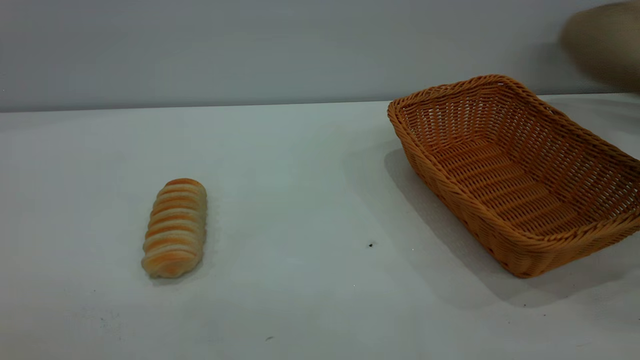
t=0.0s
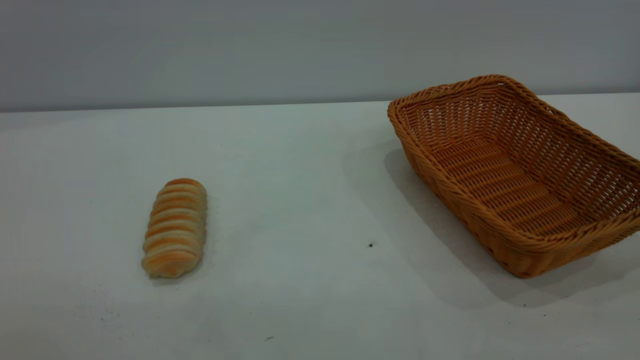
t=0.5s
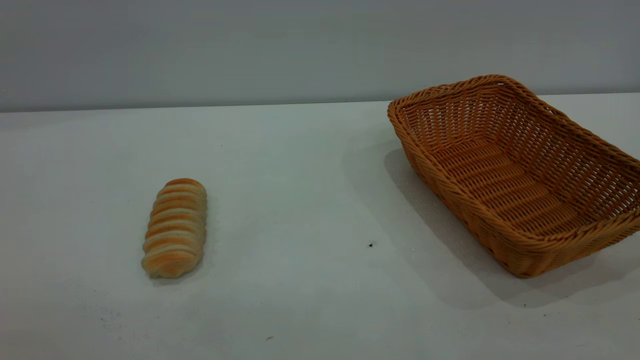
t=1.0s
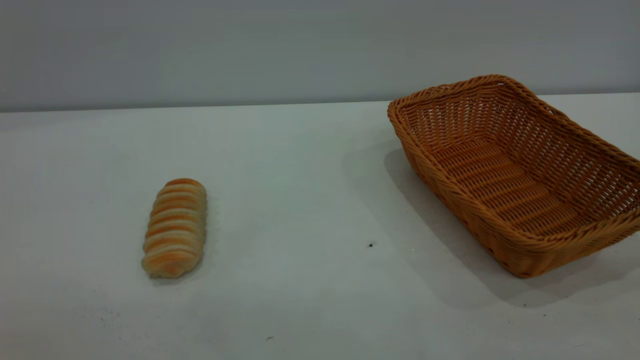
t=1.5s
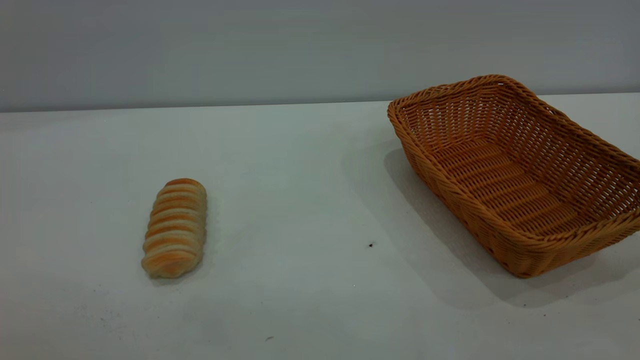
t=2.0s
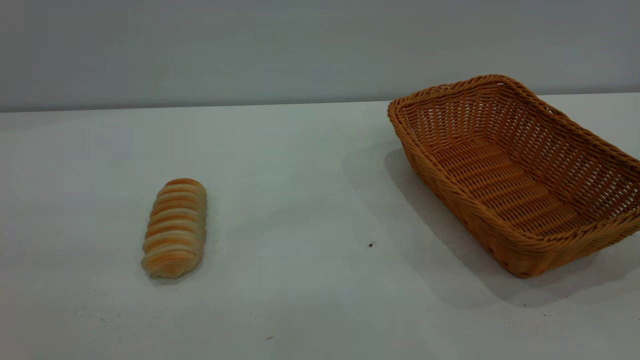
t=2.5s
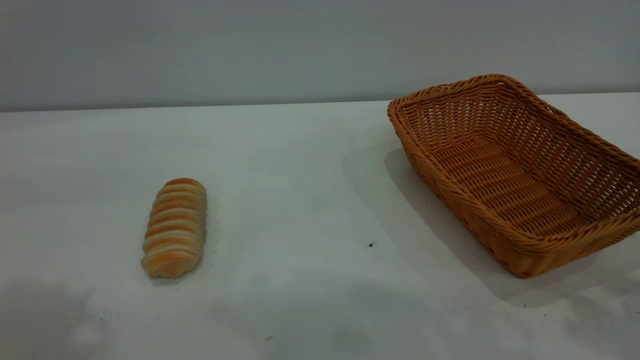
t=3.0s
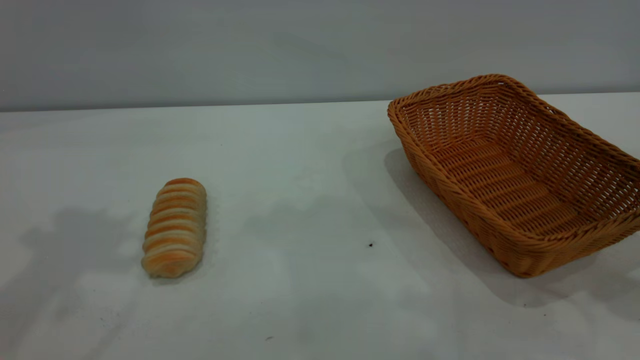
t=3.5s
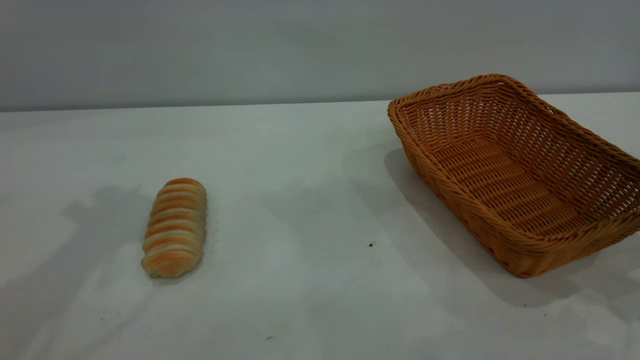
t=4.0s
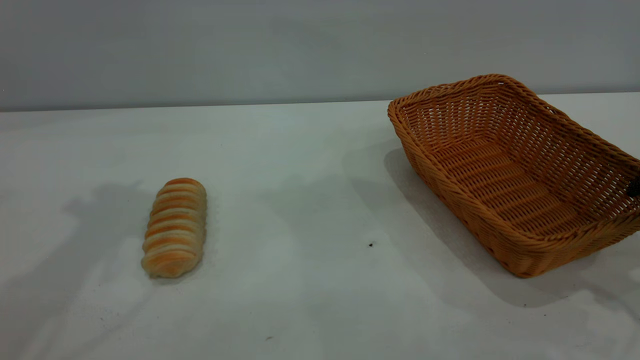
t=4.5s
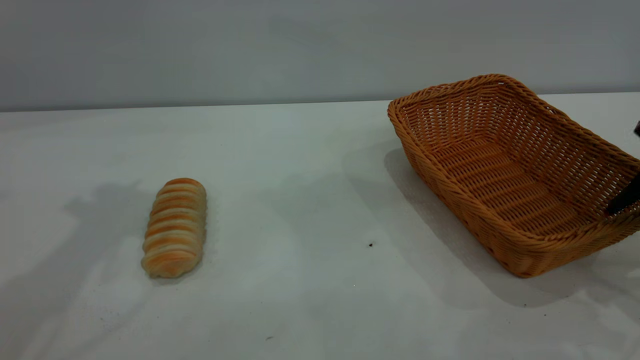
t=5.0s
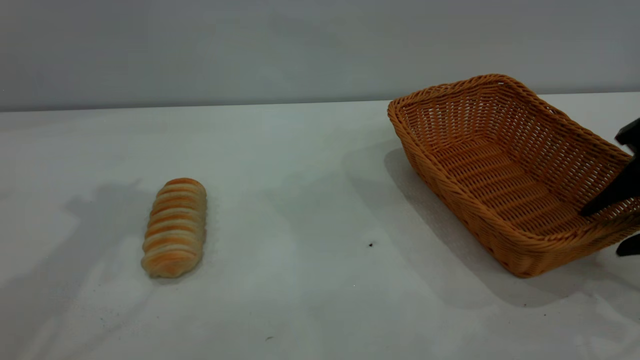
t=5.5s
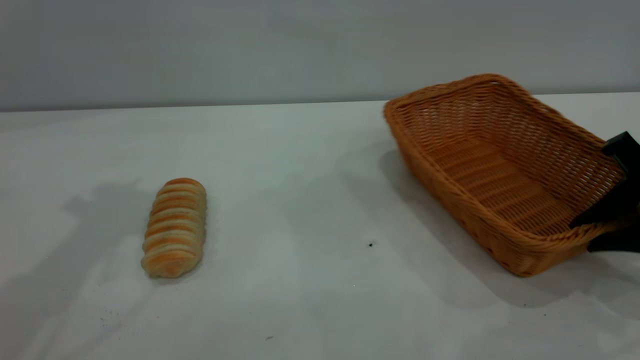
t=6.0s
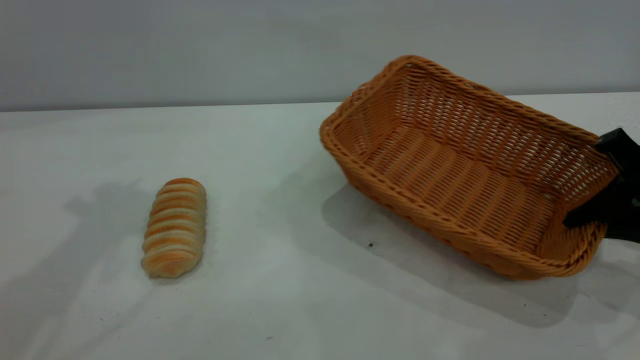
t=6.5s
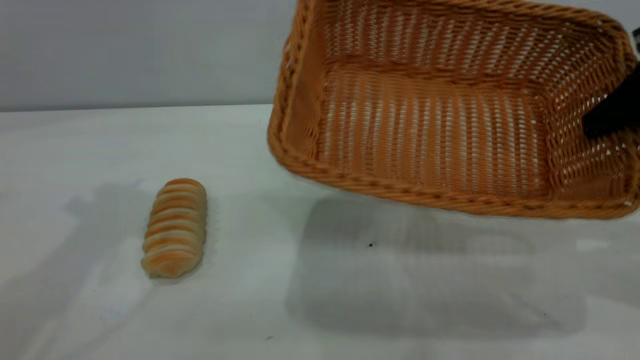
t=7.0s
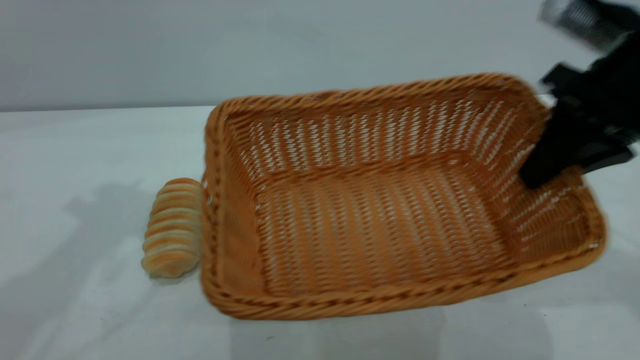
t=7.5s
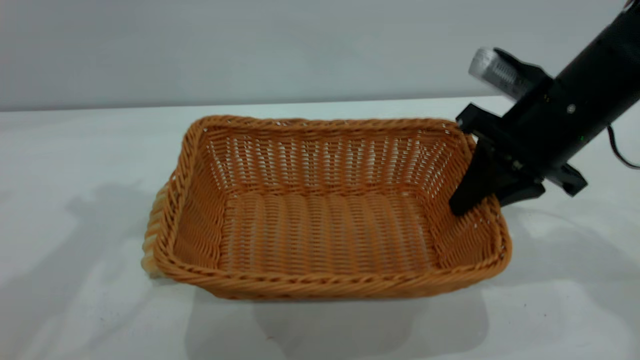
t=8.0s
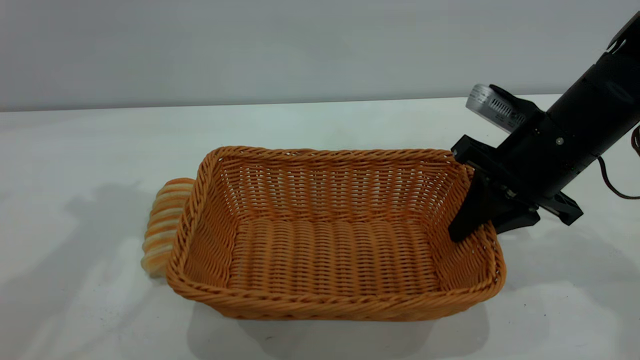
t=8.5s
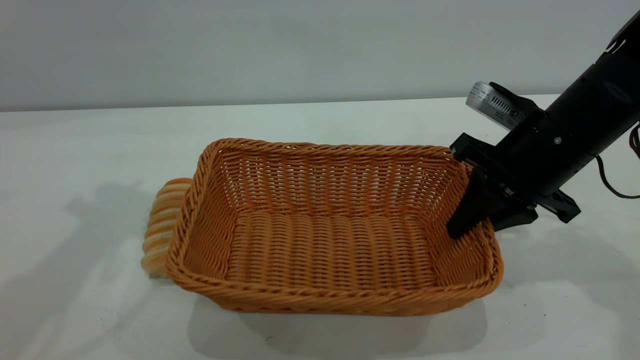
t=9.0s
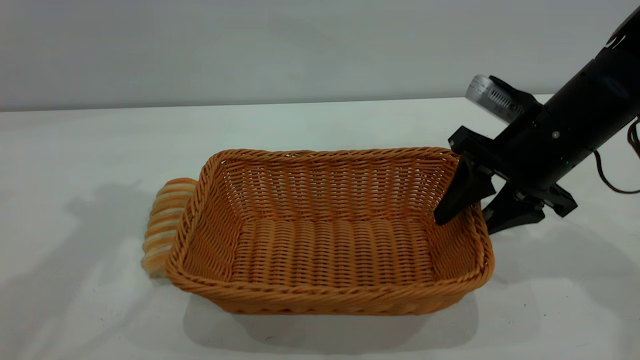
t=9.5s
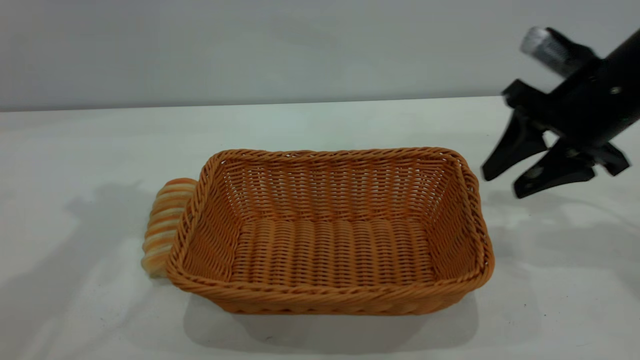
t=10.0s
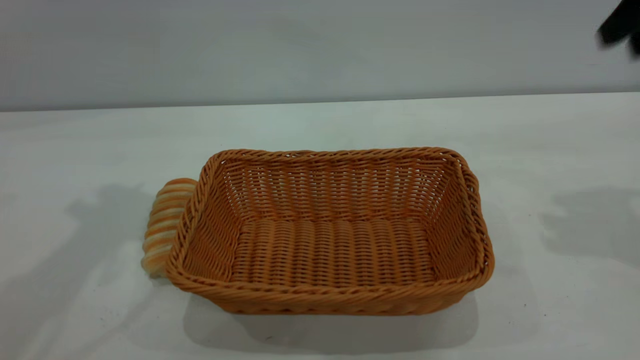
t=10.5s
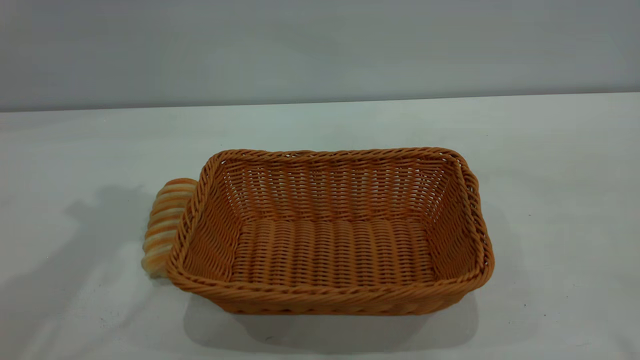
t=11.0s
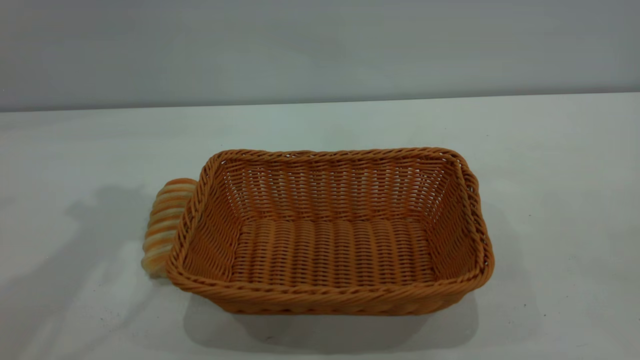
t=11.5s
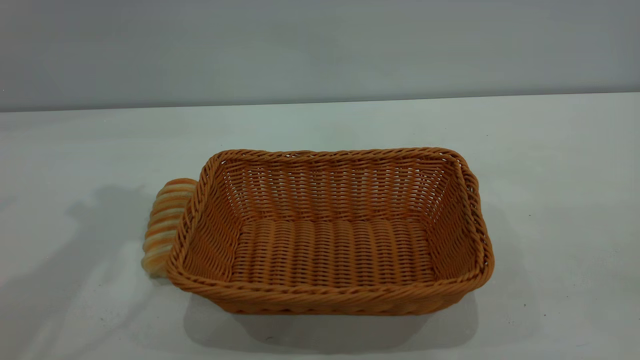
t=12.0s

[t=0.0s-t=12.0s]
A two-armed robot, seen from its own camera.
Task of the whole recording: One hand grasps the yellow basket and places it in the middle of the table, while the other hand picks up the long bread and puts it into the yellow basket.
Step, t=0.0s to t=10.0s: Move the basket to the center of view.
t=0.0s to t=2.0s: The grippers stay close to where they were, moving slightly.
t=4.0s to t=6.0s: The right gripper travels downward by some 10 cm, and closes.
t=6.0s to t=8.0s: The right gripper is displaced to the left and forward by approximately 15 cm.
t=8.0s to t=10.0s: The right gripper shifts some 5 cm to the right, and opens up.
t=10.0s to t=12.0s: The right gripper heads backward and upward, covering approximately 40 cm.

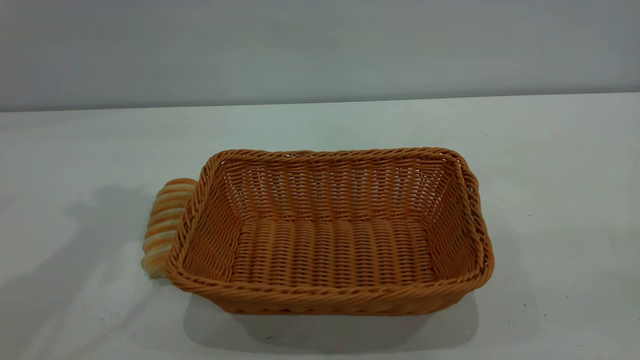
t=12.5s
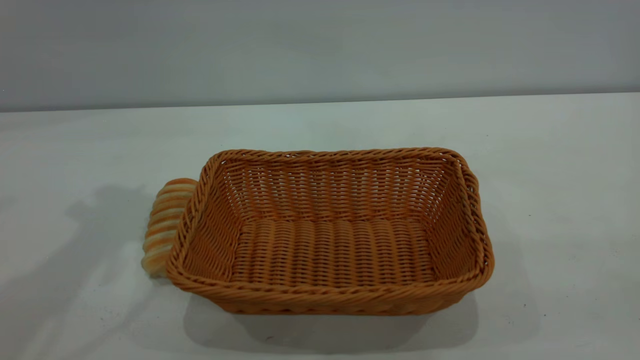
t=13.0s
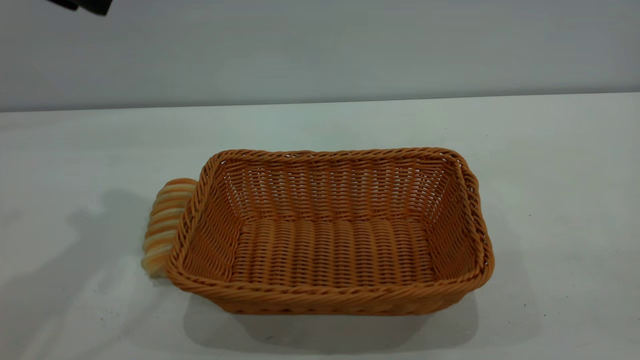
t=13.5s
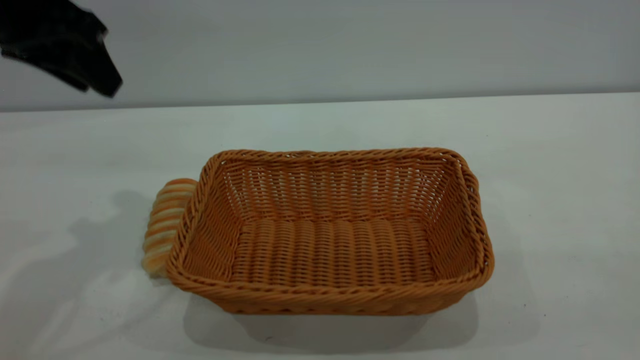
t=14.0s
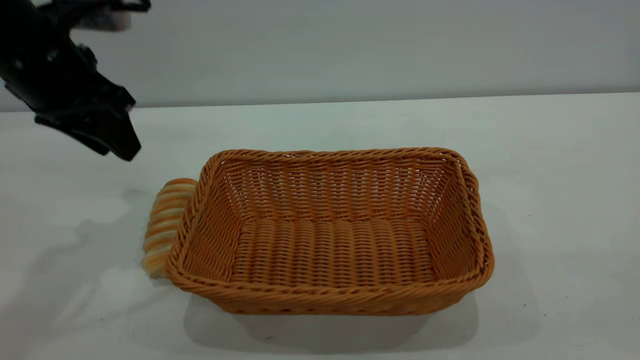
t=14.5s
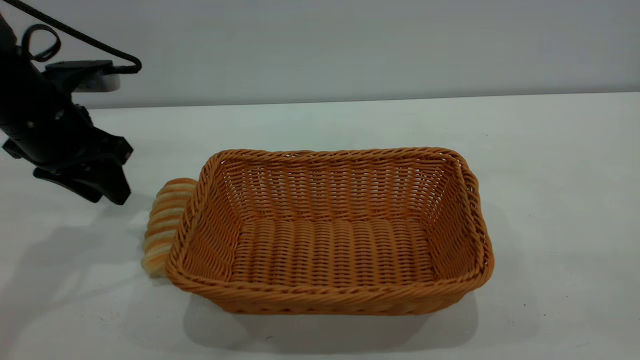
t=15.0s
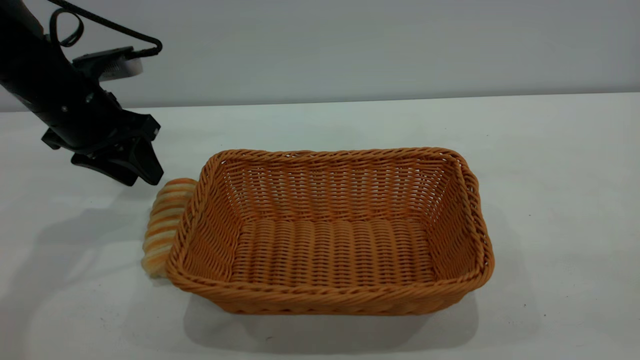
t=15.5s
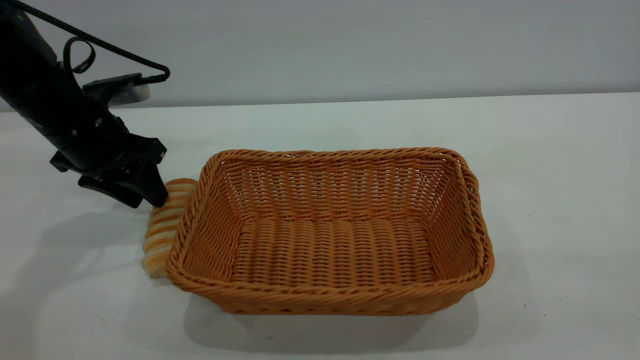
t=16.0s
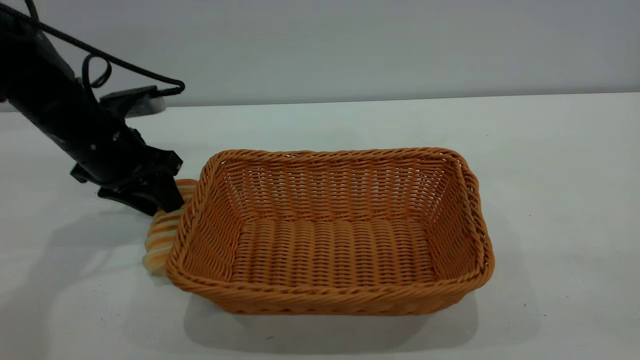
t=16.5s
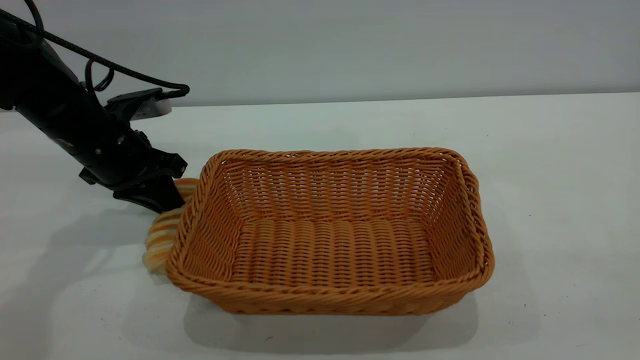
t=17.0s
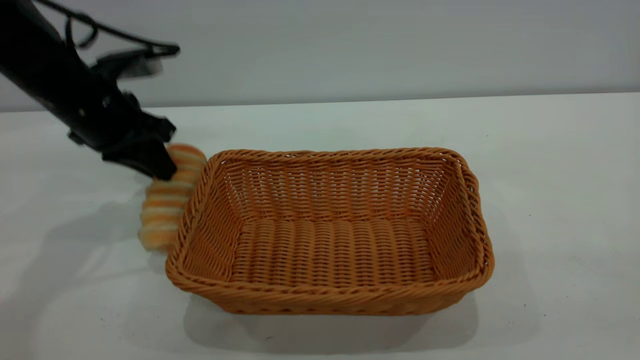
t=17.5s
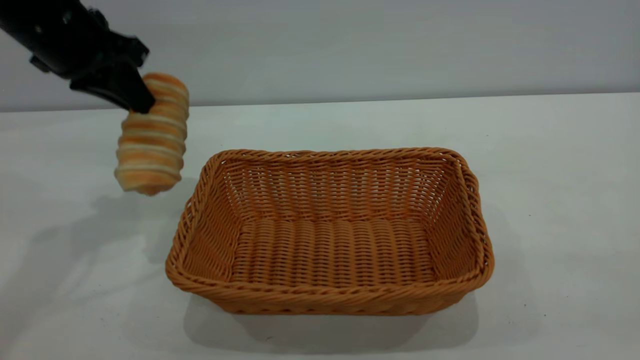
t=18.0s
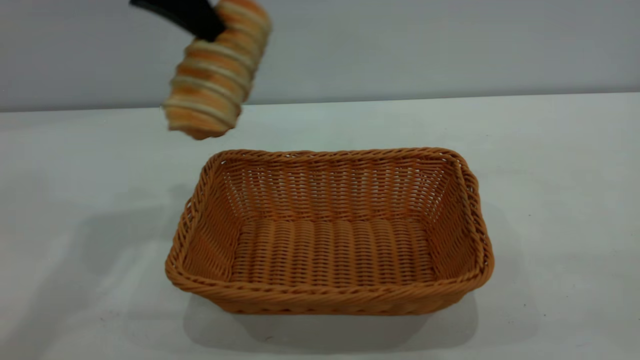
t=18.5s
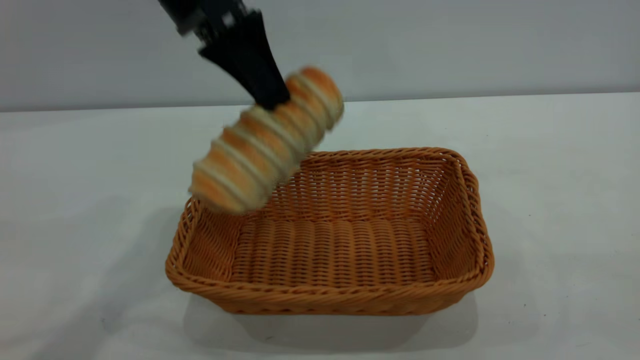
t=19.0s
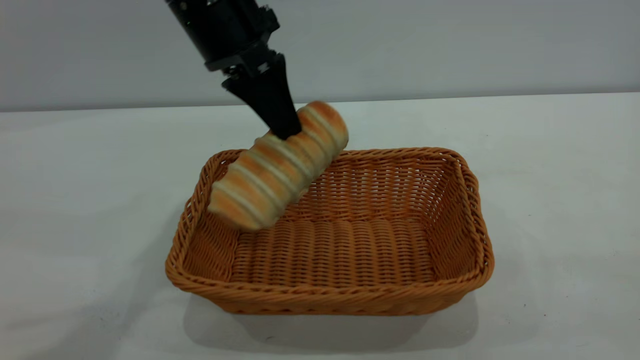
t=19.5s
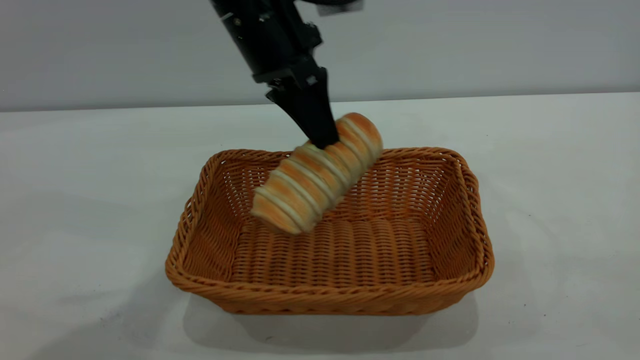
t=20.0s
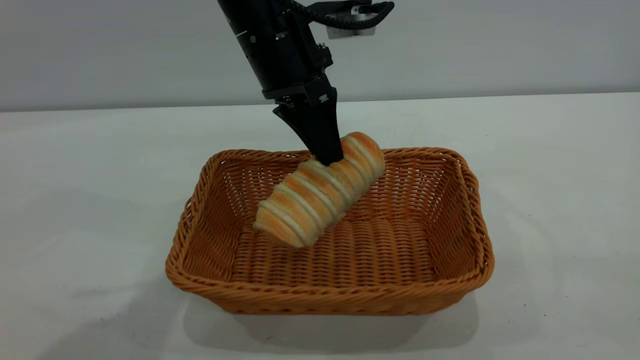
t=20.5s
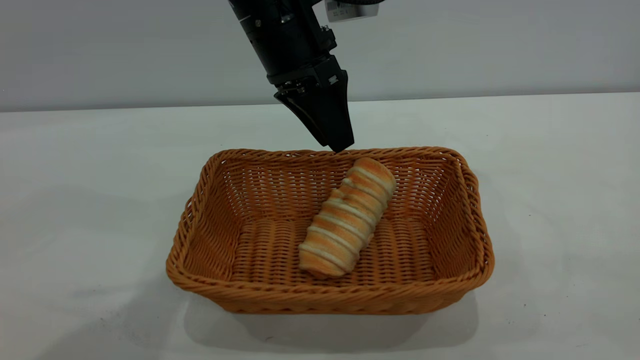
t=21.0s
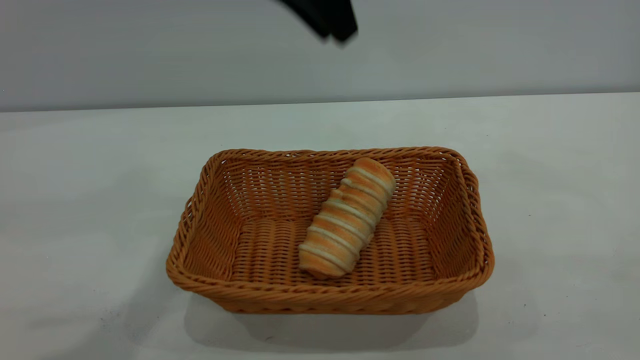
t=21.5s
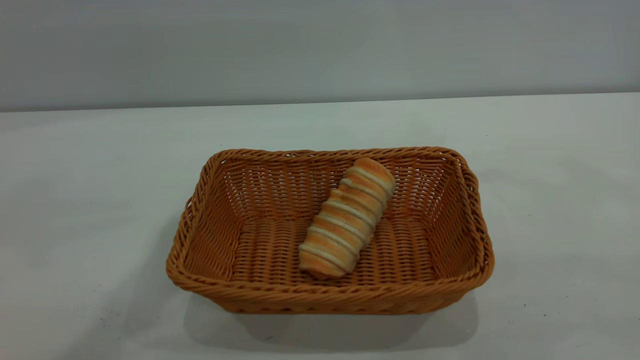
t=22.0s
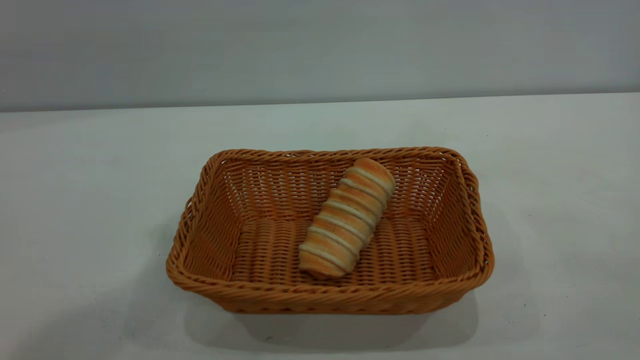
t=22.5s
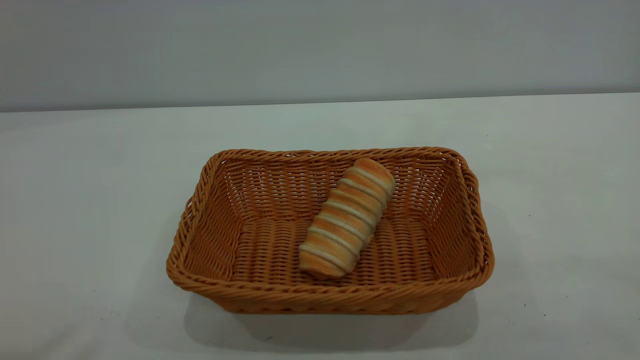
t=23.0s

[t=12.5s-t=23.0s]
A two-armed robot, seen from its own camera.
Task of the whole recording: One hand grasps the yellow basket and places it in the middle of the table, while the other hand picks up the long bread and puts it into the yellow basket.
Step, t=18.5s to t=21.0s: place the bread into the basket.
t=12.5s to t=14.5s: The left gripper moves downward, some 15 cm.
t=14.5s to t=16.5s: The left gripper is displaced downward by approximately 10 cm.
t=16.5s to t=19.0s: The left gripper is displaced upward and to the right by roughly 20 cm, and closes.
t=19.0s to t=21.0s: The left gripper moves to the right and downward, roughly 10 cm, and opens up.
t=21.0s to t=23.0s: The left gripper heads upward, backward and to the left, covering approximately 50 cm.
